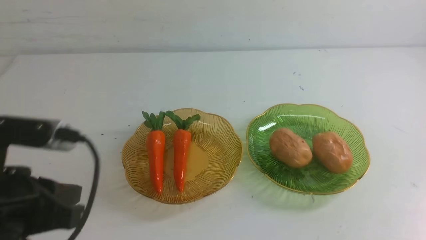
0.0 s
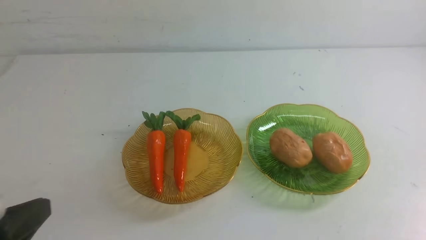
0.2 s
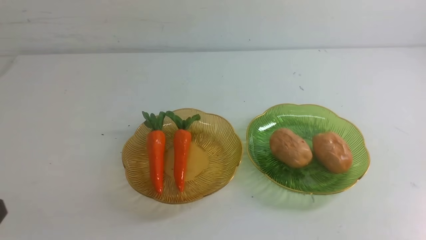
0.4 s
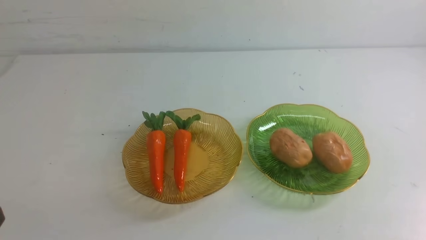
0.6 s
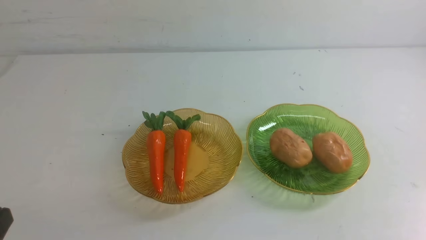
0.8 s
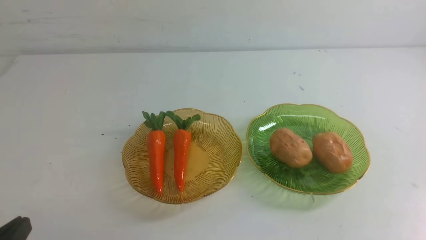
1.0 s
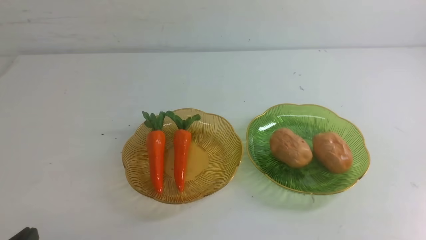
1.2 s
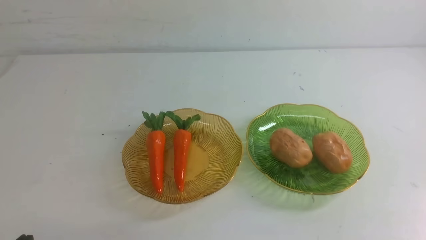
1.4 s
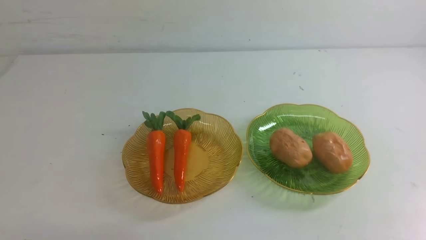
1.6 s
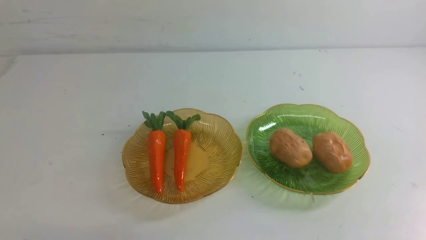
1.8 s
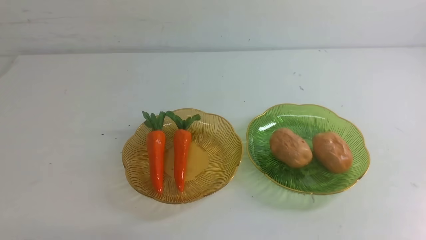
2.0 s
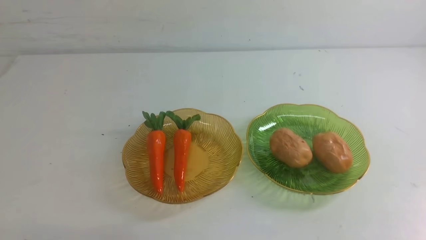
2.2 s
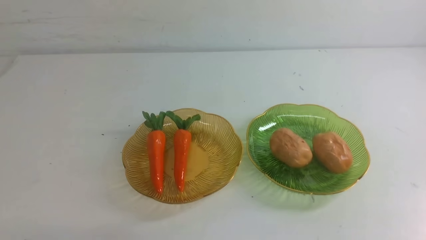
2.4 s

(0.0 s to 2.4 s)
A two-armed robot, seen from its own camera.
0.0 s - 1.2 s: The left gripper goes roughly 5 cm downward.
1.2 s - 2.4 s: Both grippers stay about where they are.
